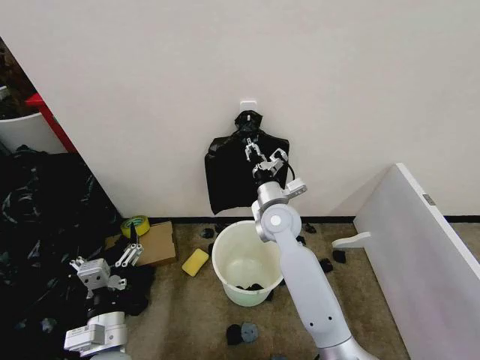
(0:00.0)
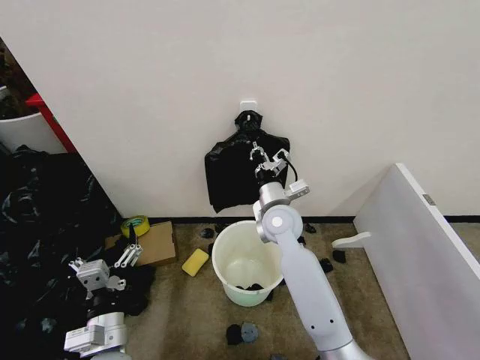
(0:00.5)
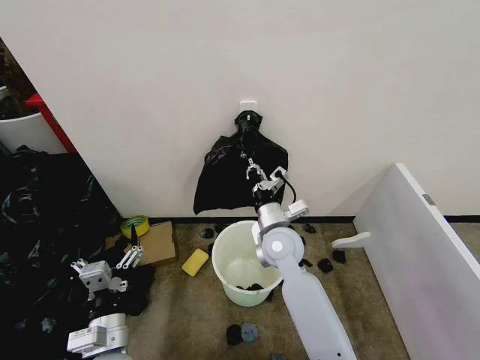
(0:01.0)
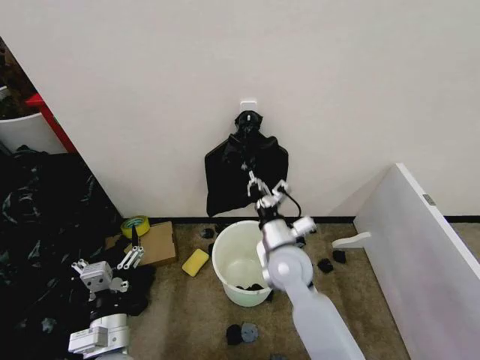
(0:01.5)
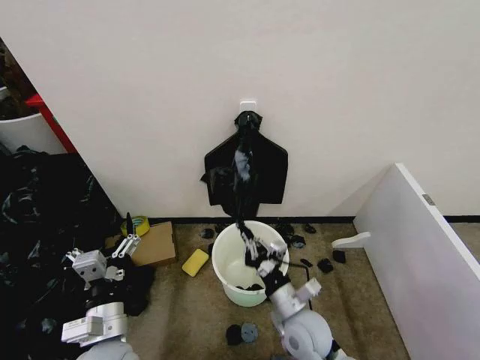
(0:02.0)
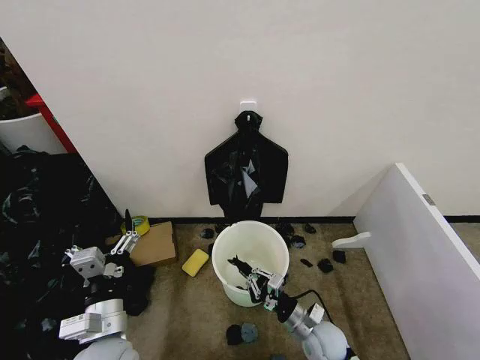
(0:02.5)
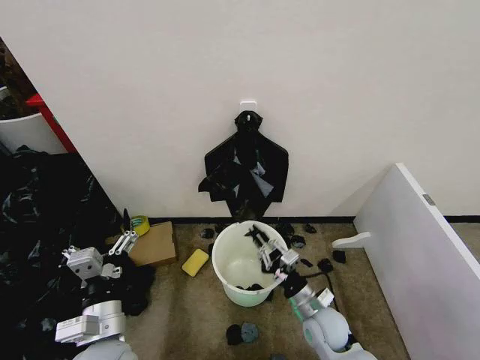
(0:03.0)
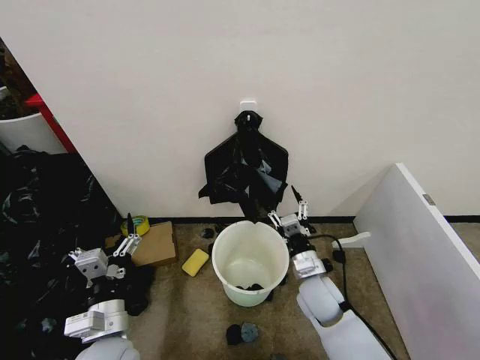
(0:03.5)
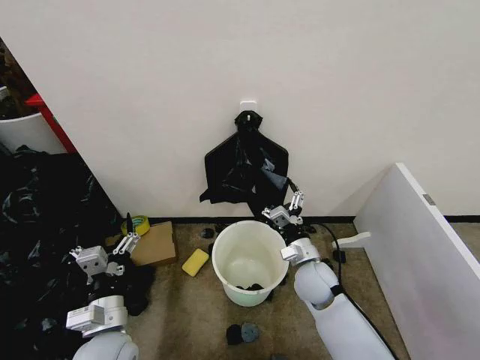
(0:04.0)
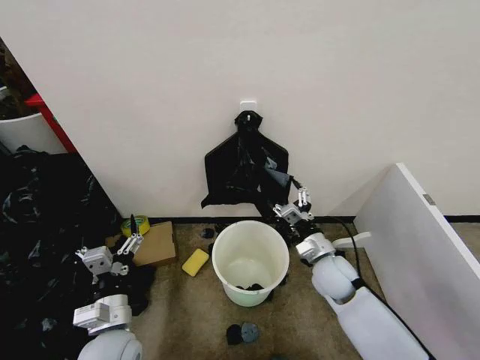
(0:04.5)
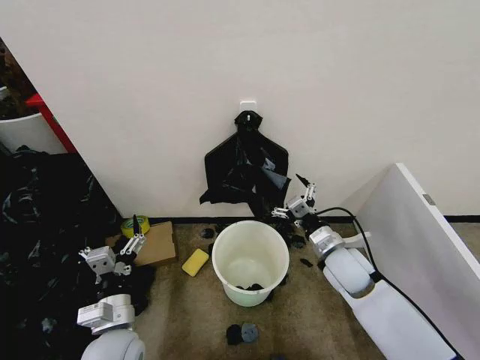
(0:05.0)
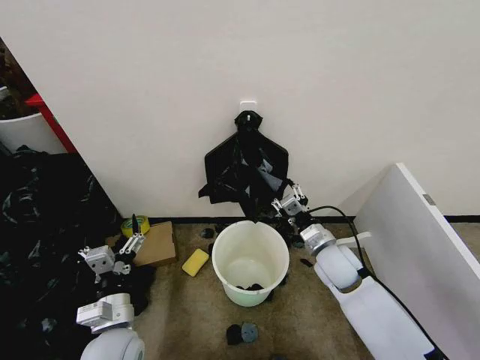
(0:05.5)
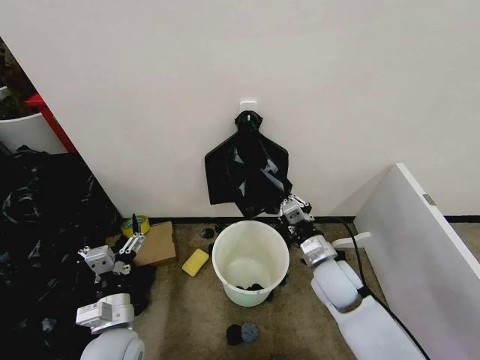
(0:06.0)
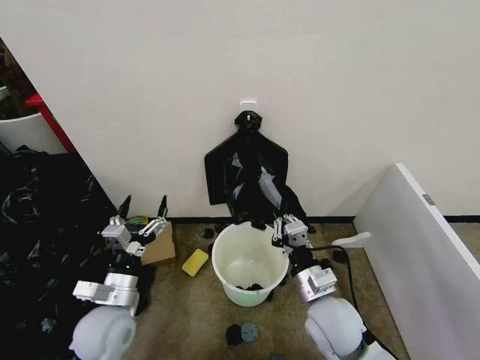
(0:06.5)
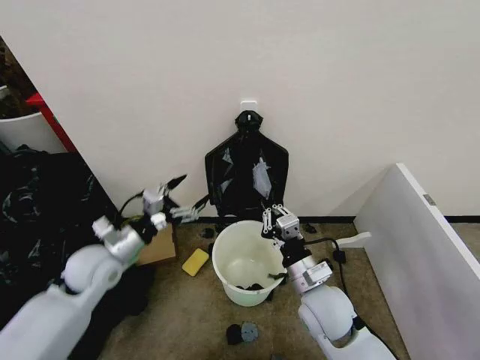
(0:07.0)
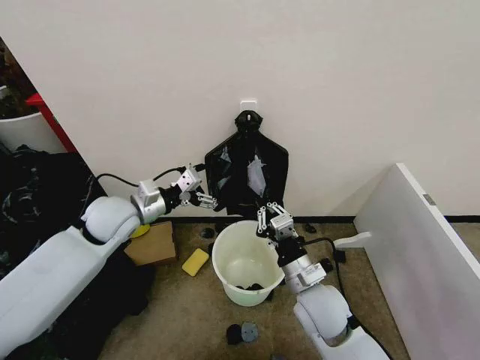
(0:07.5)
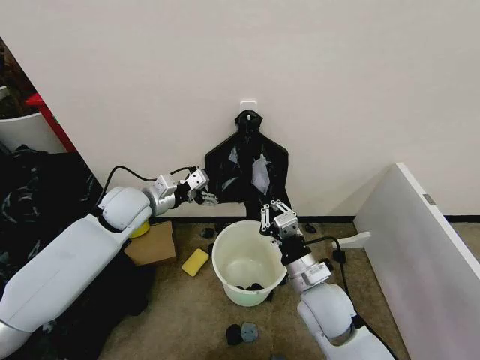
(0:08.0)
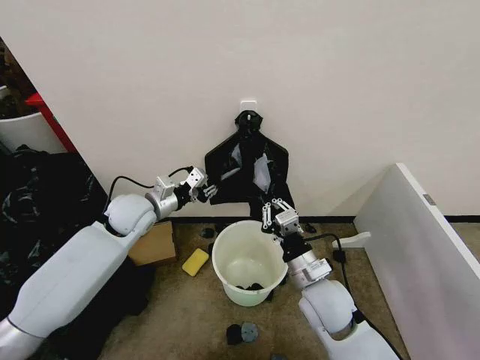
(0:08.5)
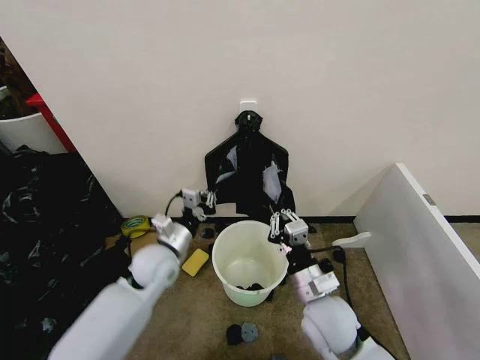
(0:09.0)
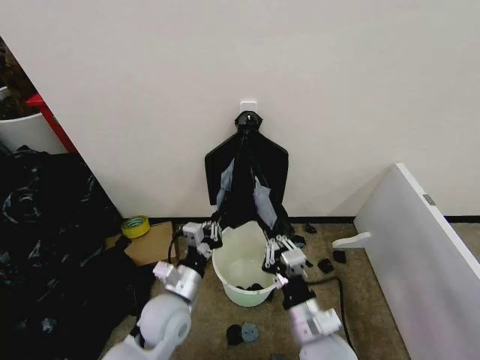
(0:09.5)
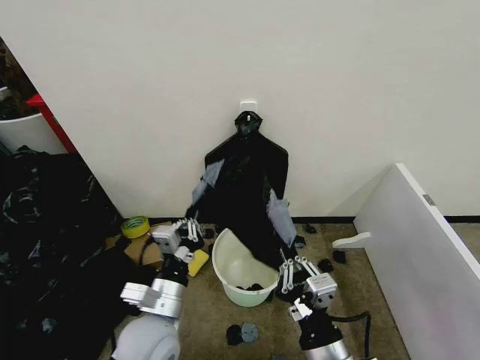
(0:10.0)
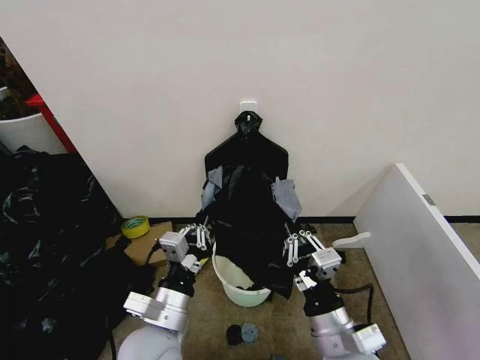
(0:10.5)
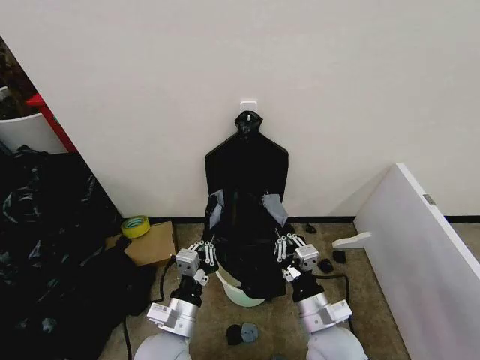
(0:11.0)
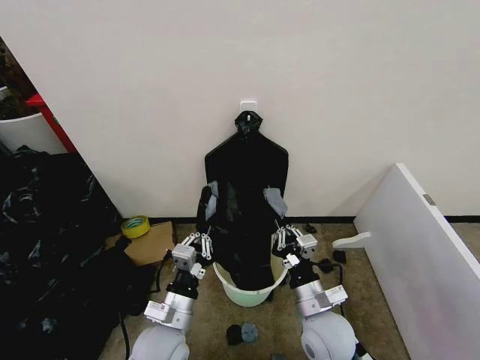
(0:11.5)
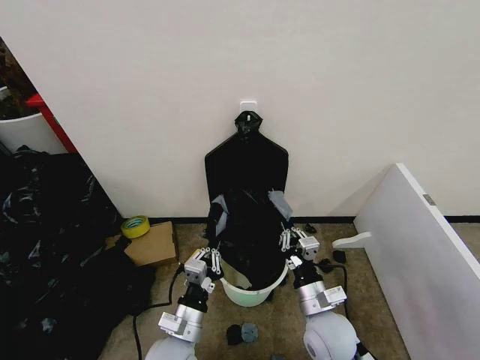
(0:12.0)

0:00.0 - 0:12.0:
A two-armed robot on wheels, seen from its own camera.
Task of the whole recording: Place the garbage bag over the trash bin.
0:00.0 - 0:02.0: The right gripper goes approximately 25 cm backward and downward.
0:02.0 - 0:04.0: The right gripper goes about 10 cm forward, and opens its fingers.
0:04.0 - 0:06.0: The right gripper shifts by about 5 cm, and closes up.
0:06.0 - 0:08.0: The left gripper is displaced forward and upward by roughly 30 cm. The right gripper goes approximately 5 cm backward.
0:08.0 - 0:10.0: Both grippers travel together backward, approximately 20 cm. The left gripper closes up.
0:10.0 - 0:12.0: The left gripper goes roughly 10 cm downward, while the right gripper moves forward and downward, about 15 cm.

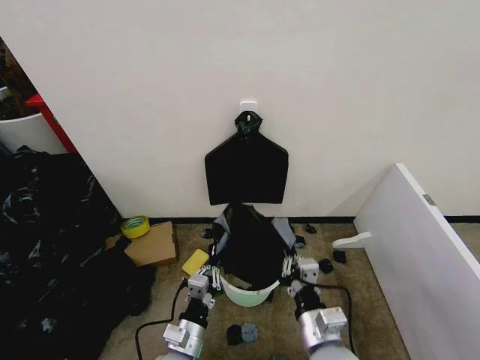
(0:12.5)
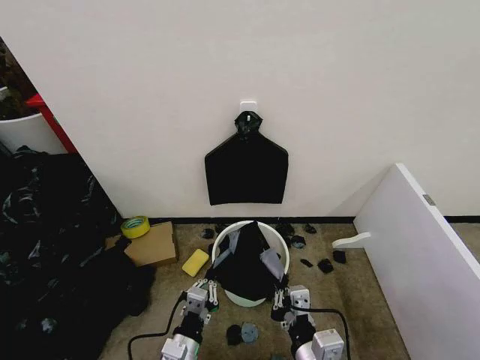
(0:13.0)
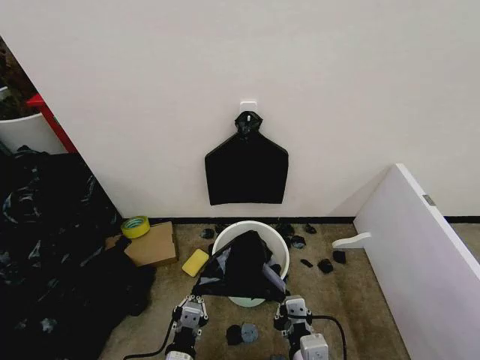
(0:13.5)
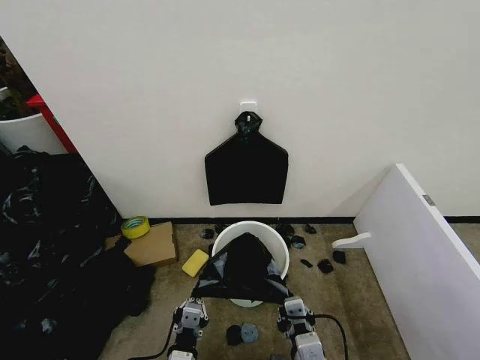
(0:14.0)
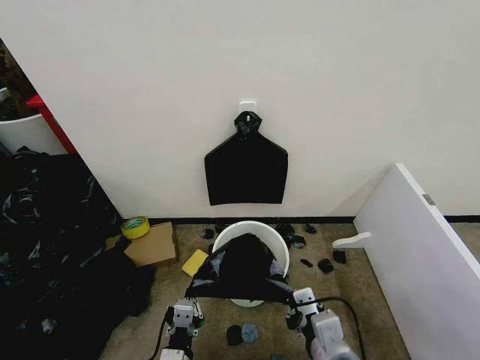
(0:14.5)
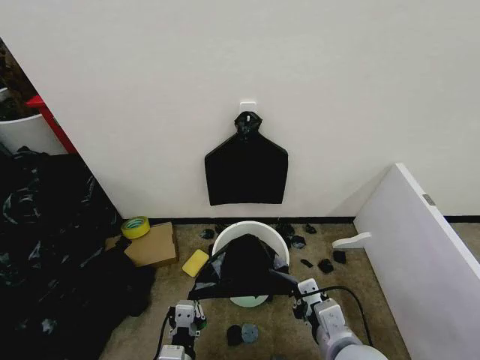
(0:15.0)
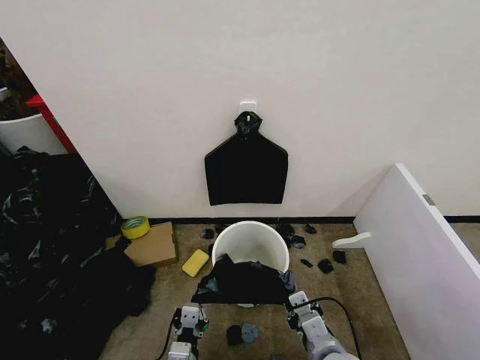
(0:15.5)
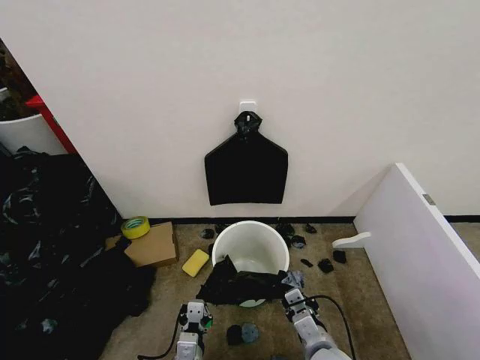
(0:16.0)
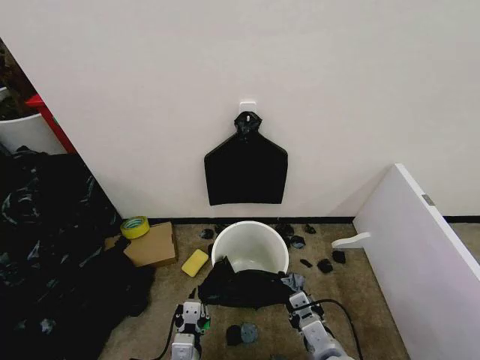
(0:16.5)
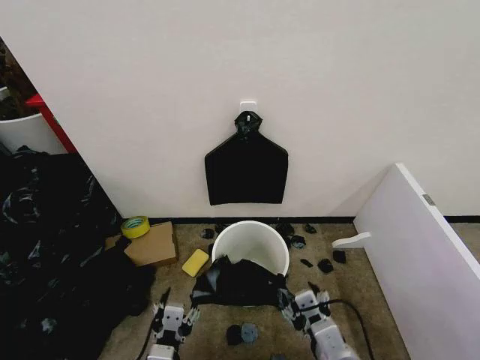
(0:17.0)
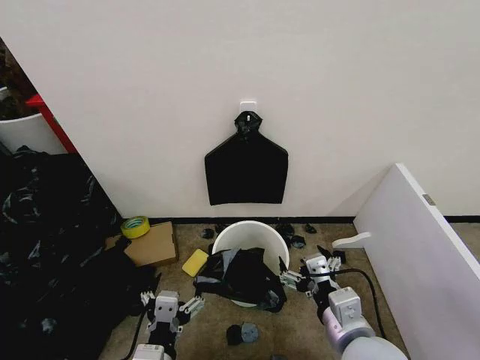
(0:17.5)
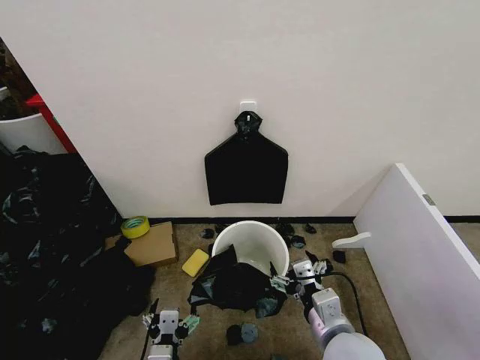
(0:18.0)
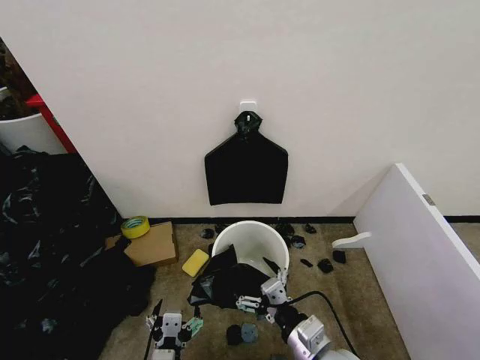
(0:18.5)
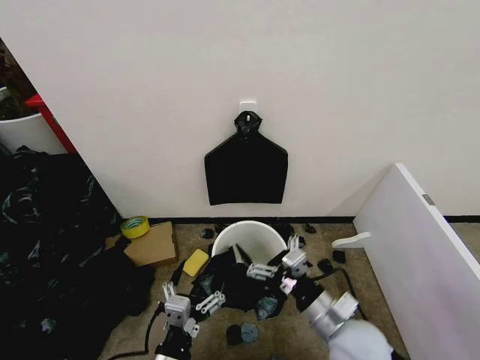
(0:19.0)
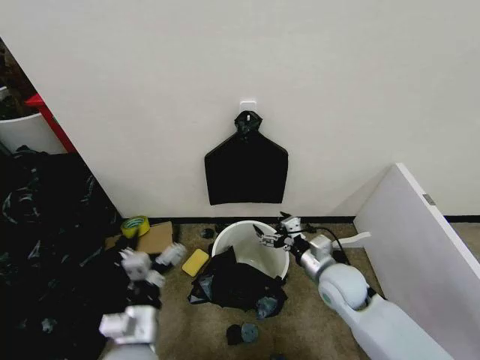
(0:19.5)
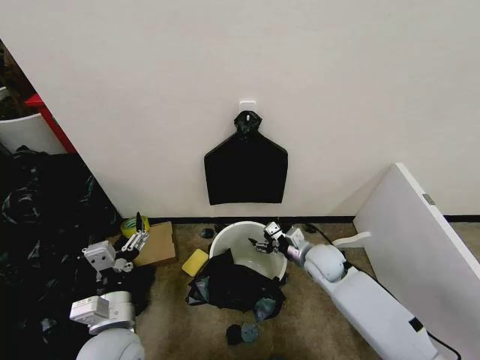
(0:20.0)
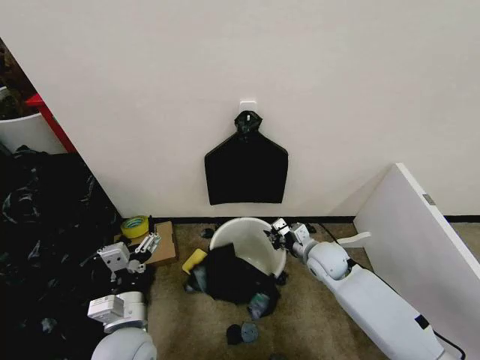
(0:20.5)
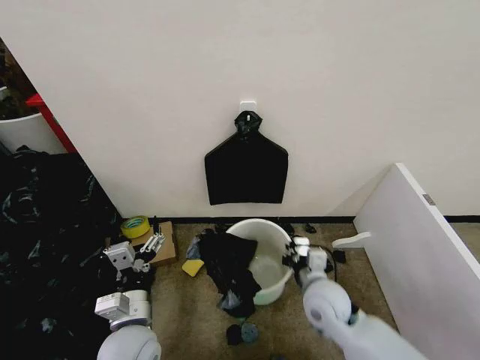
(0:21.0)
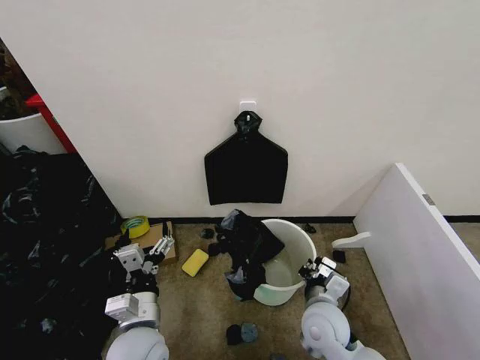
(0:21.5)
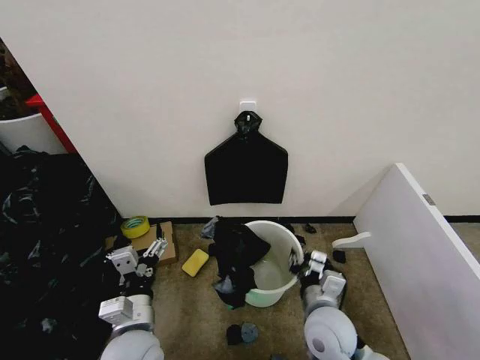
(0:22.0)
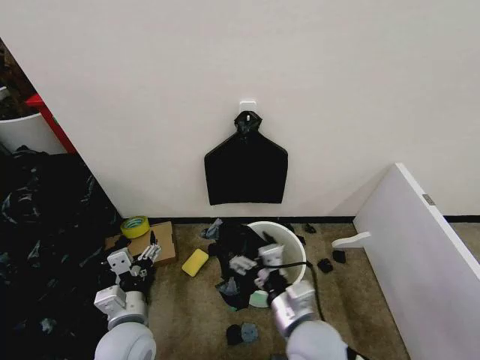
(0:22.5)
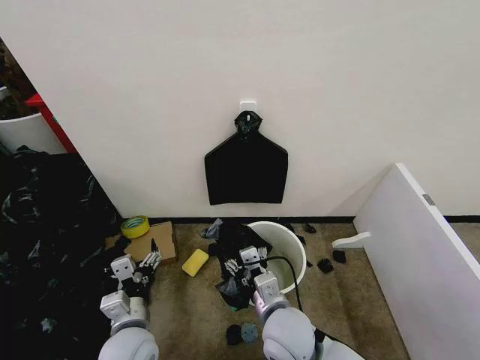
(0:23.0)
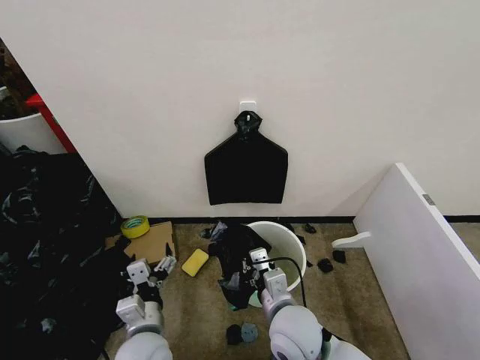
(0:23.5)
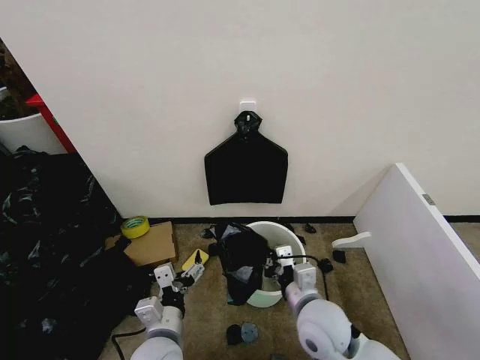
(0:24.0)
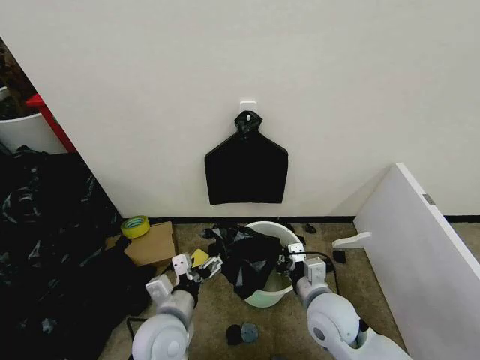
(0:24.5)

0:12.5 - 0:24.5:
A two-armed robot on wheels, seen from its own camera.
Task of the whole recording: Place the garbage bag over the trash bin.
0:12.5 - 0:14.5: The right gripper moves upward, approximately 5 cm; the left gripper travels backward by about 5 cm.
0:14.5 - 0:16.5: The right gripper is displaced downward by roughly 10 cm.
0:16.5 - 0:18.5: The left gripper travels upward and back again, approximately 10 cm each way, and opens its fingers, while the right gripper moves approximately 10 cm upward and comes back, and opens its fingers.
0:18.5 - 0:20.5: The left gripper goes some 15 cm forward, upward and to the left; the right gripper goes roughly 25 cm forward, and closes its fingers.
0:20.5 - 0:22.5: The right gripper moves backward and to the left, approximately 25 cm, and opens up.
0:22.5 - 0:24.5: The right gripper shifts about 10 cm forward and to the right, and closes up; the left gripper heads to the right, covering about 5 cm.

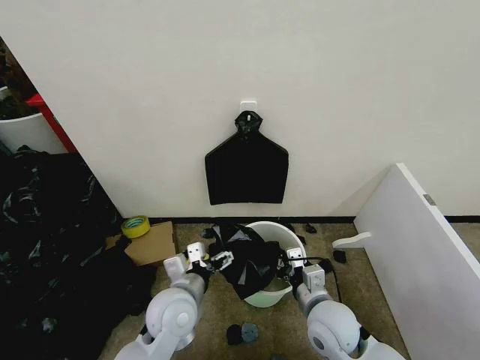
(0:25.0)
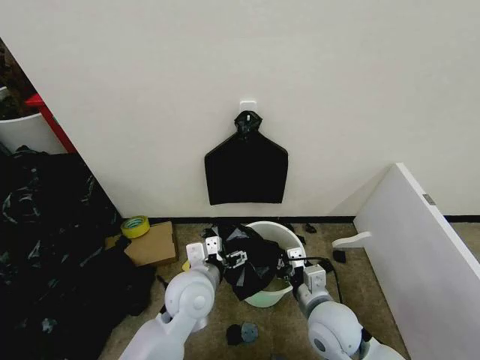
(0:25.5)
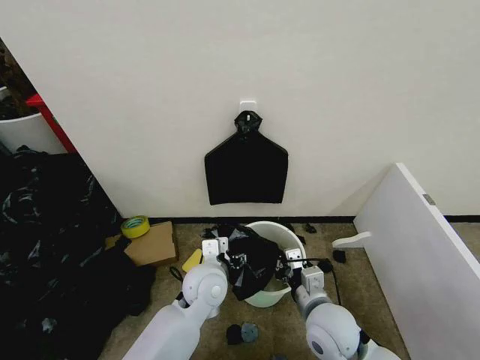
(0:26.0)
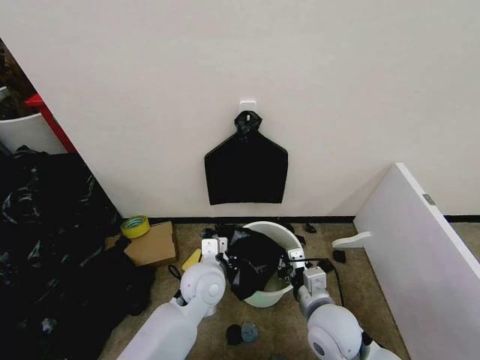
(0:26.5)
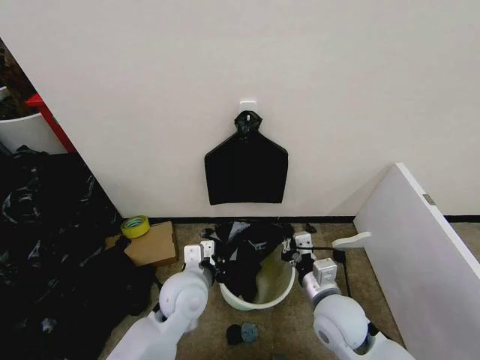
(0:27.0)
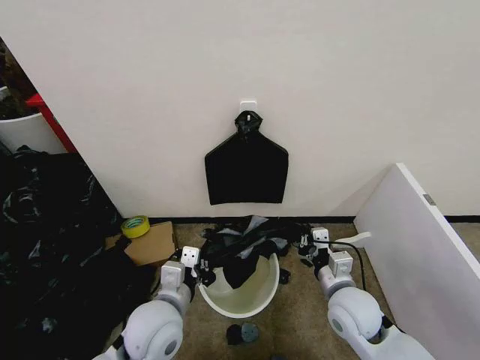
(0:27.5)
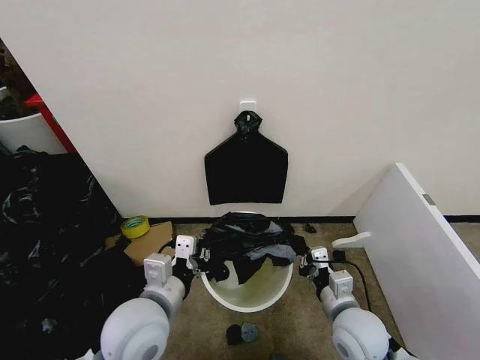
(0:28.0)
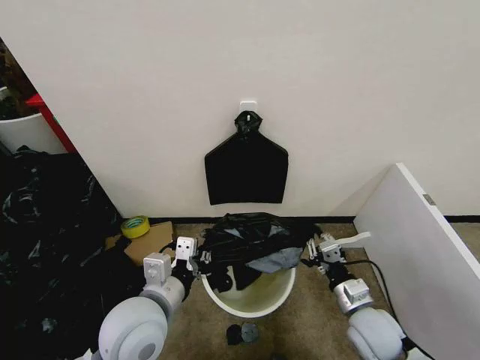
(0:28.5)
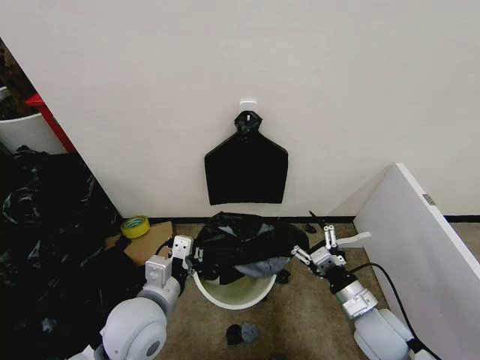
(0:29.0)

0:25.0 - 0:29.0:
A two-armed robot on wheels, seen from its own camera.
Task of the whole recording: Place the garbage bag over the trash bin.
0:25.0 - 0:27.0: The left gripper closes.
0:27.0 - 0:29.0: The left gripper goes some 10 cm backward and to the left; the right gripper goes roughly 10 cm to the right, and opens.
